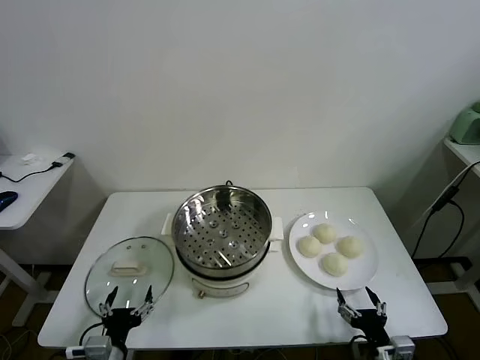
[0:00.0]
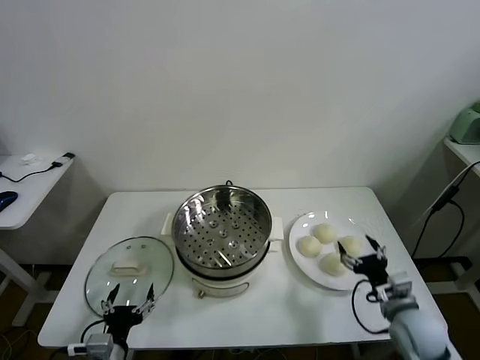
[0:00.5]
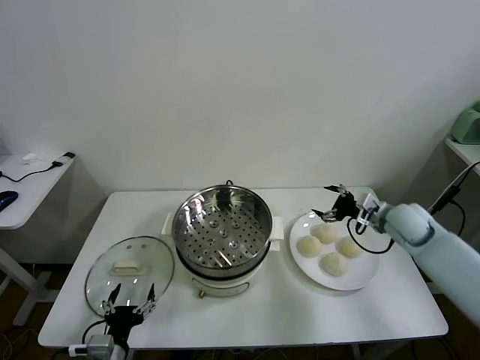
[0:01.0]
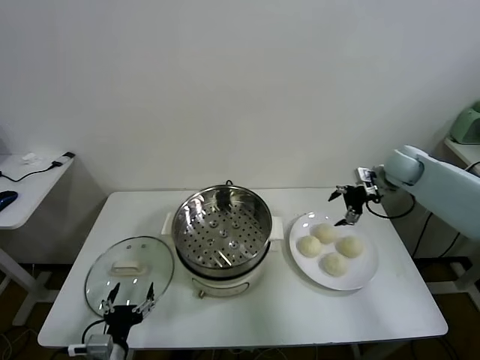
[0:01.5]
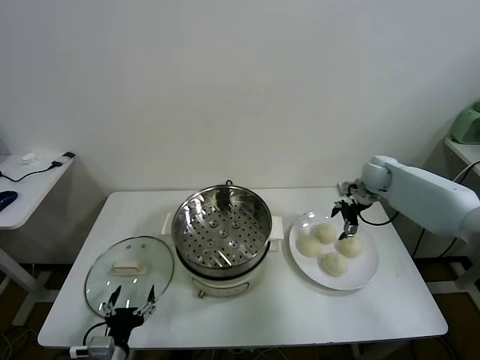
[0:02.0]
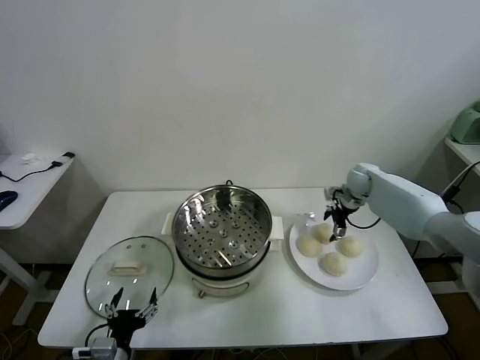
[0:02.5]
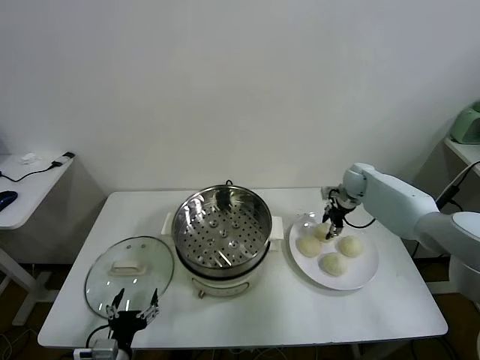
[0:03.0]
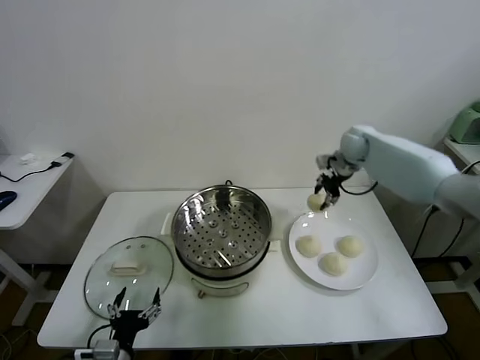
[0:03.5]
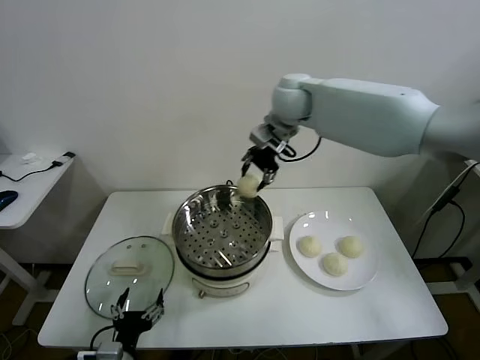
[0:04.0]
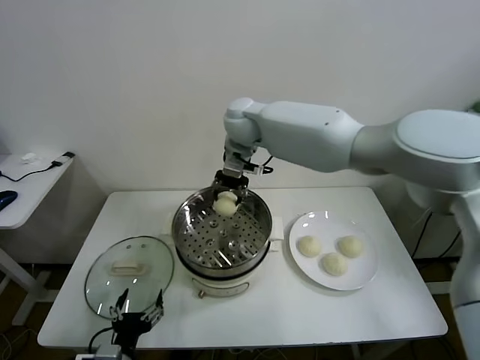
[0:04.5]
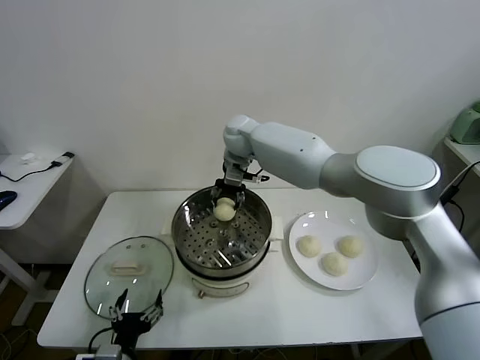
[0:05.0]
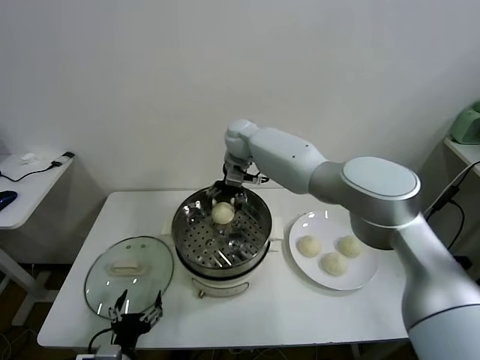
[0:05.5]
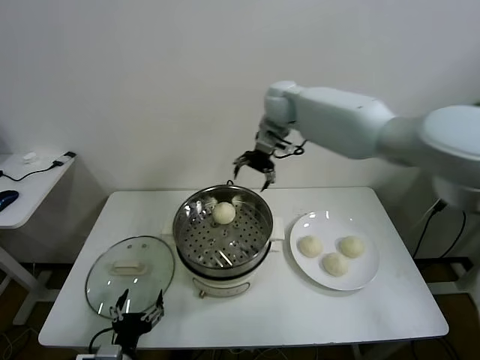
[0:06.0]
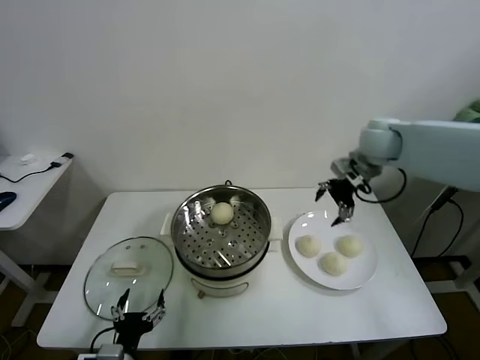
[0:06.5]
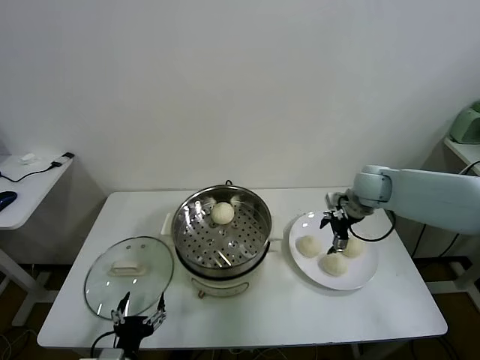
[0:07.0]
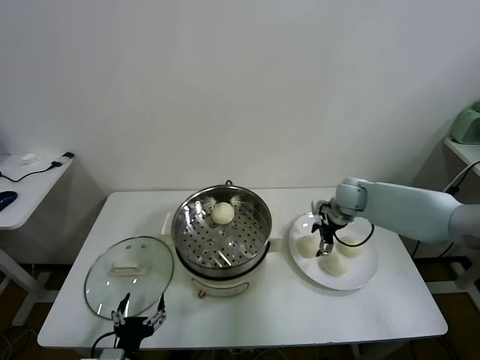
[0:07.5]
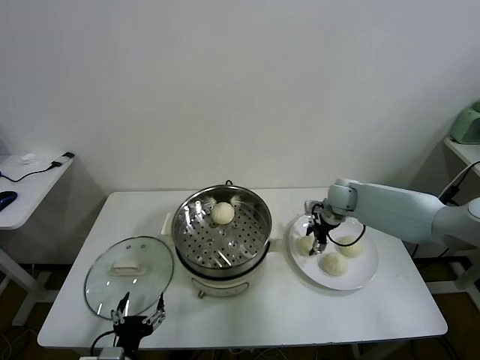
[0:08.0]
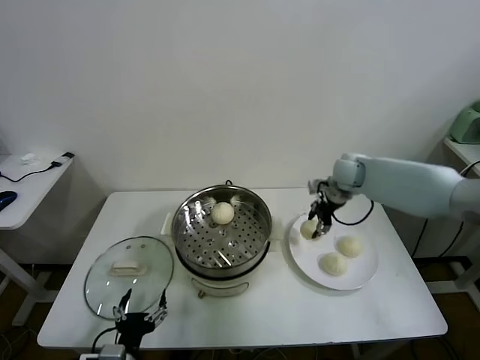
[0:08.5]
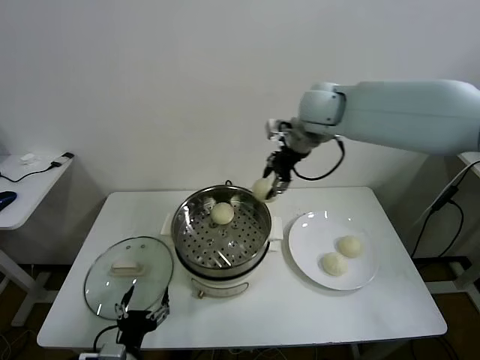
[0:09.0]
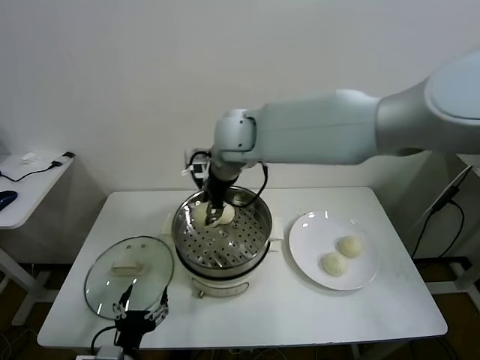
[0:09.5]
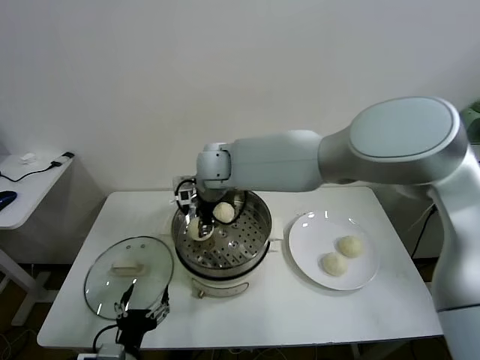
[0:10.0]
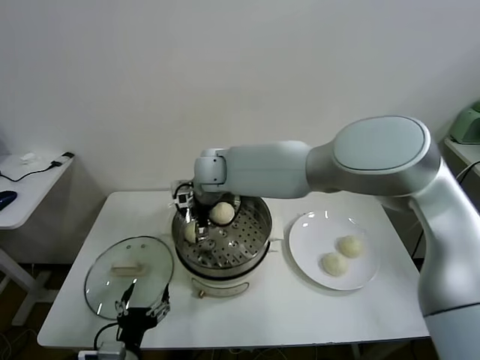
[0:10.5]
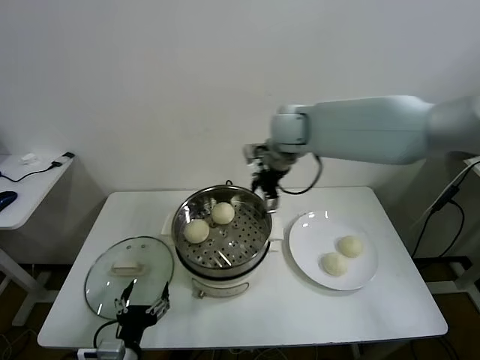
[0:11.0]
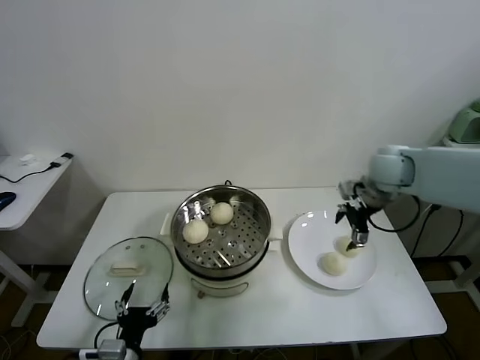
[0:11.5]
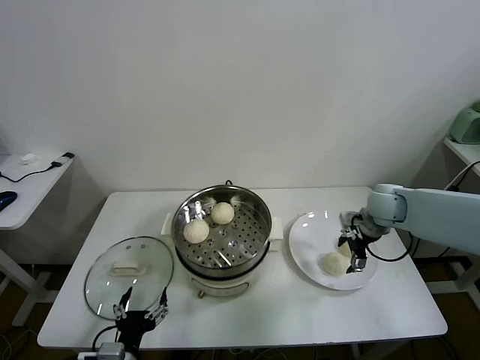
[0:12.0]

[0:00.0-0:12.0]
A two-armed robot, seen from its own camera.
Task of the whole recording: take steamed baozi put them in steamer.
Step, 0:00.0 to 0:03.0: Grasp the baozi in the plate with right gripper.
Step, 0:03.5 to 0:05.5: Place the baozi on the steamer with right gripper.
Step, 0:06.0 to 0:08.0: Grasp the baozi in the plate with right gripper.
Step, 0:08.5 to 0:10.0: Place the baozi on the steamer with right gripper.
0:02.0 to 0:04.0: The right gripper is displaced to the left and upward by approximately 35 cm, and closes up.
0:04.0 to 0:06.0: The right gripper heads to the right and forward, covering roughly 10 cm, and opens.
0:06.0 to 0:08.0: The right gripper goes approximately 30 cm downward and to the right, and closes its fingers.
0:08.0 to 0:10.0: The right gripper goes approximately 35 cm to the left and upward.
0:10.0 to 0:12.0: The right gripper moves to the right, roughly 40 cm, and opens.

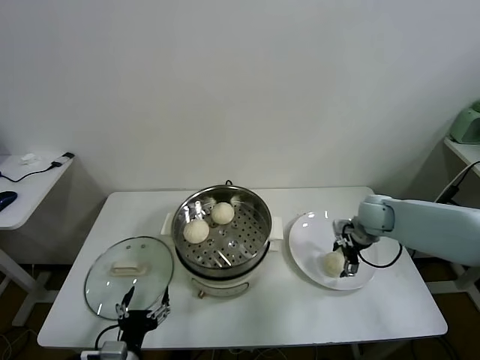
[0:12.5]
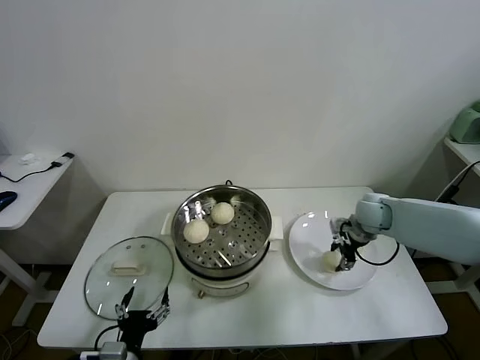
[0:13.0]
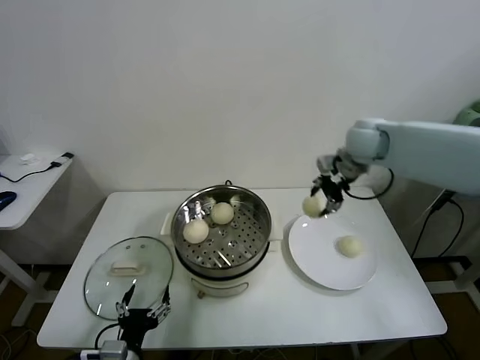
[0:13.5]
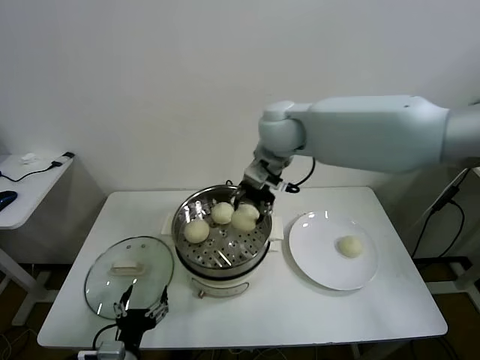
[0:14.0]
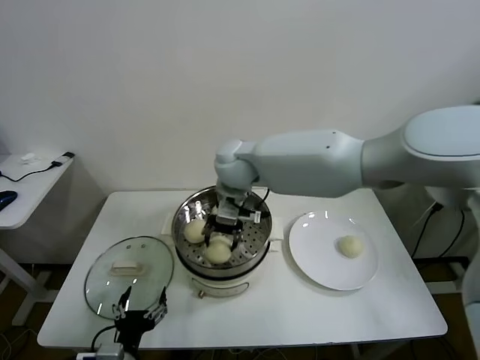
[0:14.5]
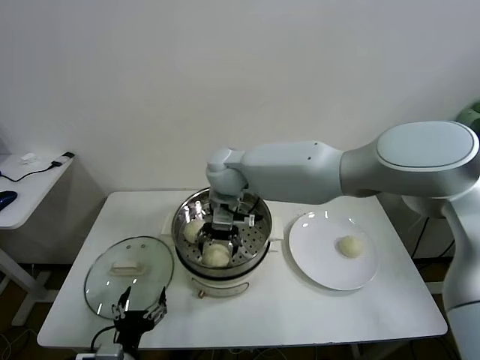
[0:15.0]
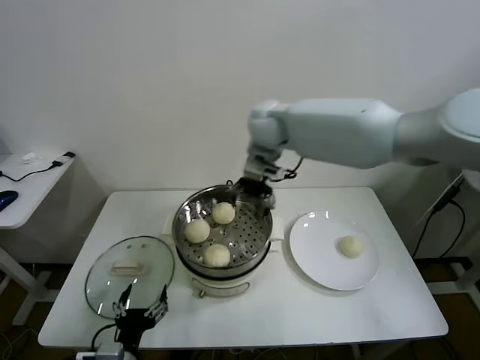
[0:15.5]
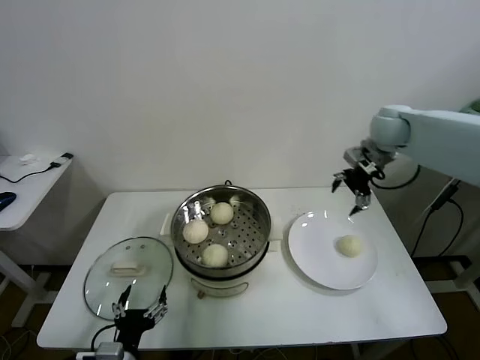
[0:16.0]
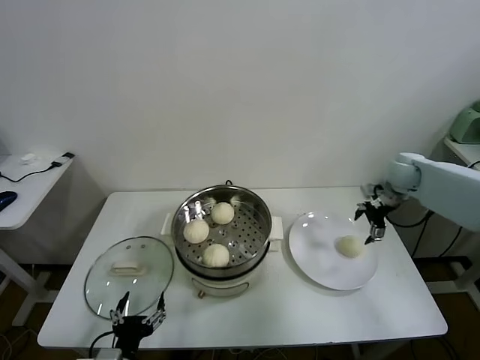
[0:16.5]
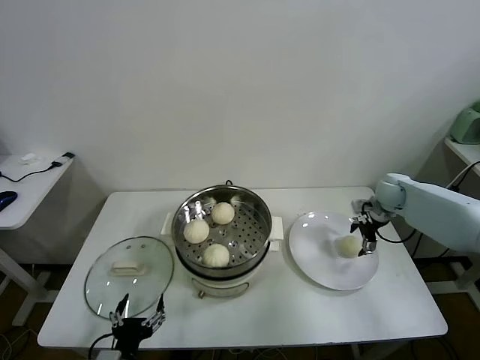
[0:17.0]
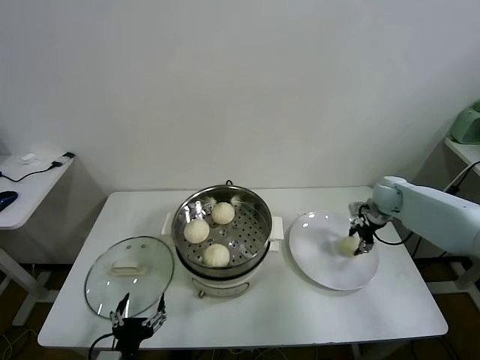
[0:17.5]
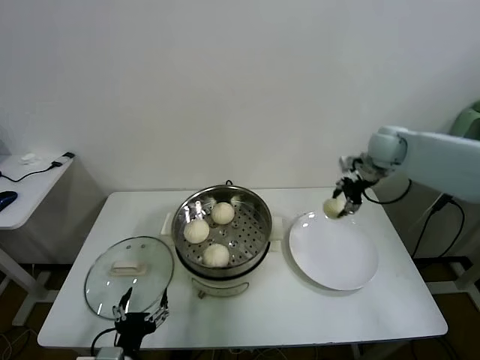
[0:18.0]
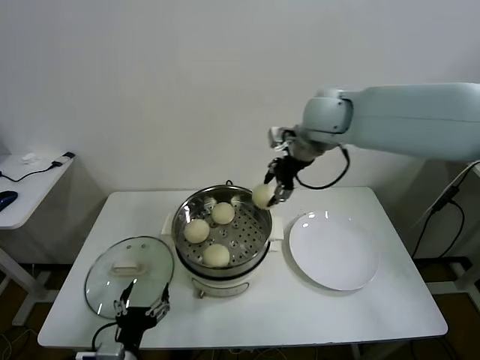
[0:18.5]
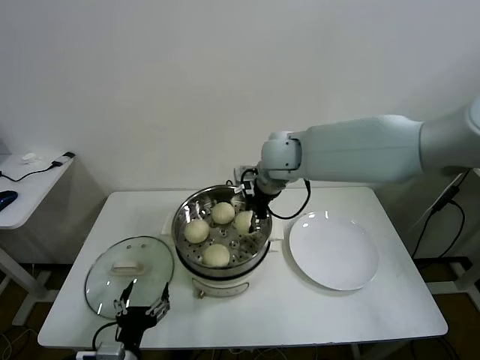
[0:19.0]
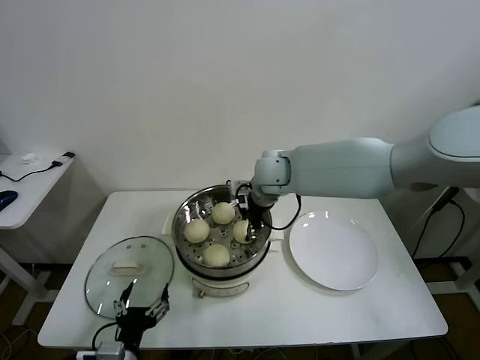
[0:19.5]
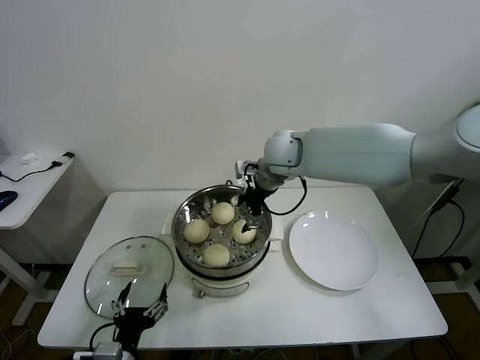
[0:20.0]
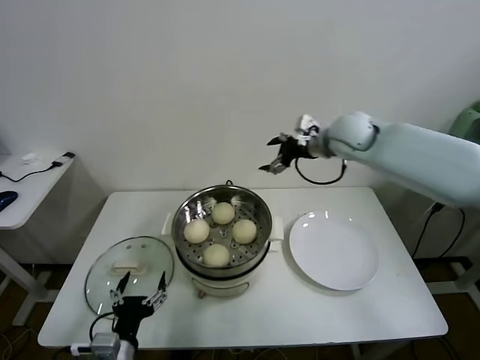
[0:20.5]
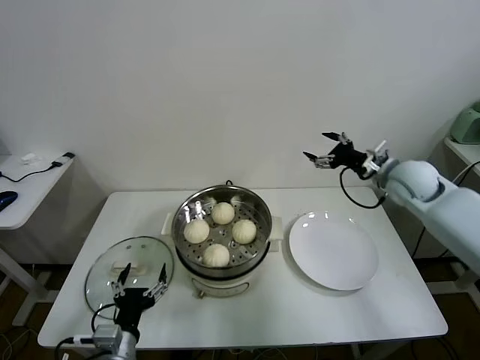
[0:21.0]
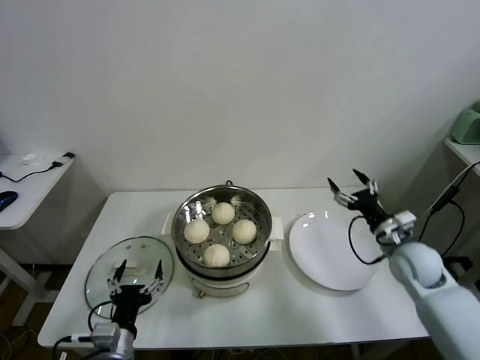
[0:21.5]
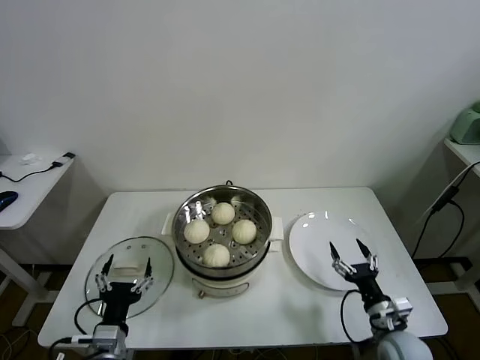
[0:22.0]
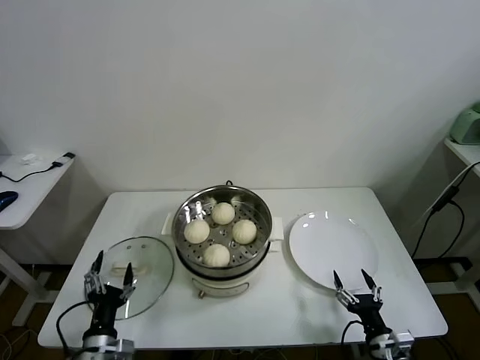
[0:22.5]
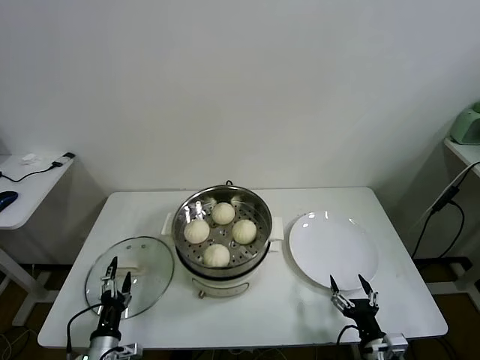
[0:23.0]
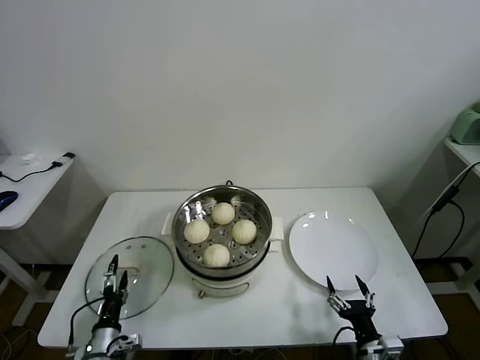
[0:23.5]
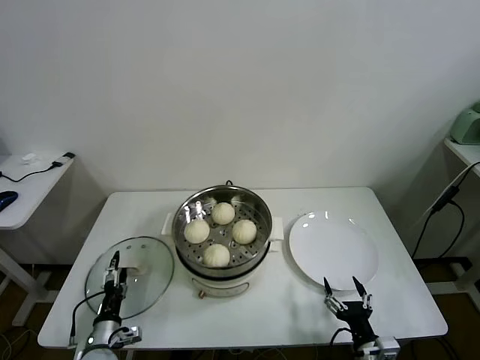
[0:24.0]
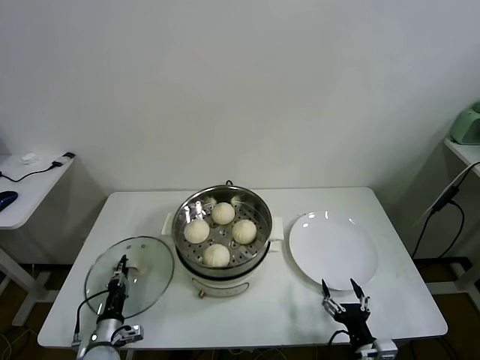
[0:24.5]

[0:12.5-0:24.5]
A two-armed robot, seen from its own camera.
Task of the whole recording: take steamed baozi put them in steamer.
Step, 0:13.0 to 0:15.0: Place the baozi on the steamer with right gripper.
Step, 0:15.5 to 0:17.0: Grasp the baozi in the plate with right gripper.
Step, 0:18.0 to 0:19.5: Place the baozi on the steamer with right gripper.
0:12.5 to 0:14.5: The right gripper travels to the left and upward by roughly 40 cm, and closes its fingers.
0:14.5 to 0:16.5: The right gripper goes about 40 cm to the right, and opens up.
0:16.5 to 0:18.5: The right gripper heads to the left and upward, covering approximately 30 cm, and closes.
0:18.5 to 0:20.5: The right gripper goes some 10 cm to the right and downward, and opens.
0:20.5 to 0:22.5: The right gripper moves backward and downward, approximately 50 cm. The left gripper shifts approximately 5 cm downward.
0:22.5 to 0:24.5: The left gripper moves downward, forward and to the left, some 15 cm, and closes.

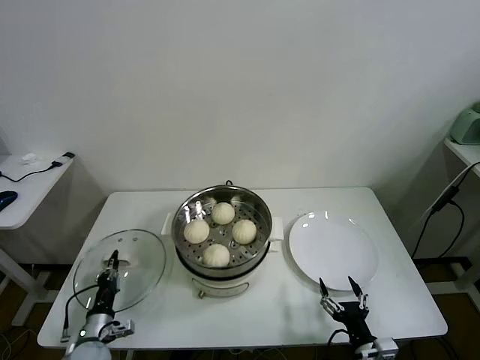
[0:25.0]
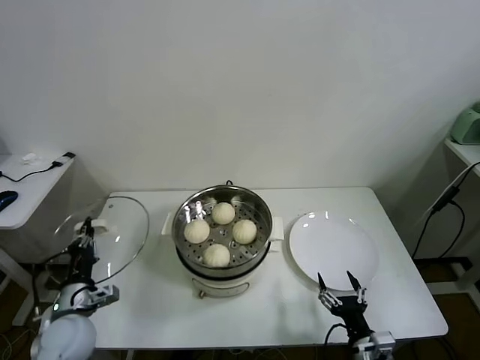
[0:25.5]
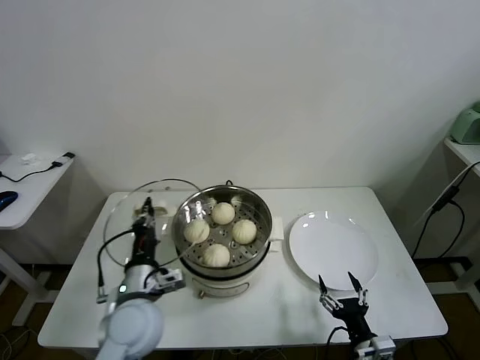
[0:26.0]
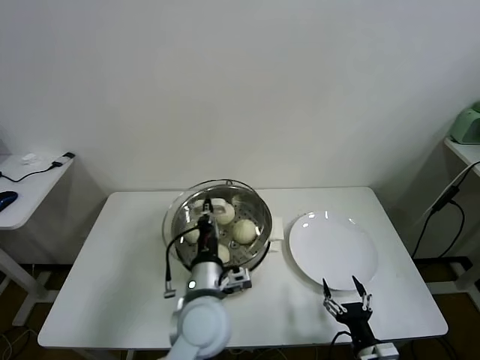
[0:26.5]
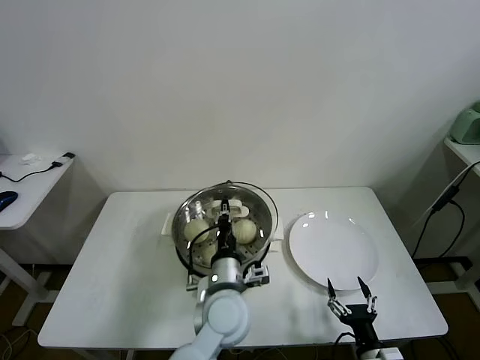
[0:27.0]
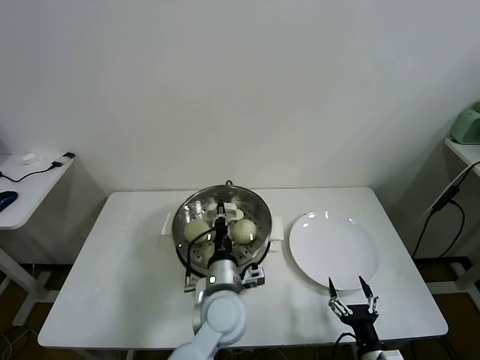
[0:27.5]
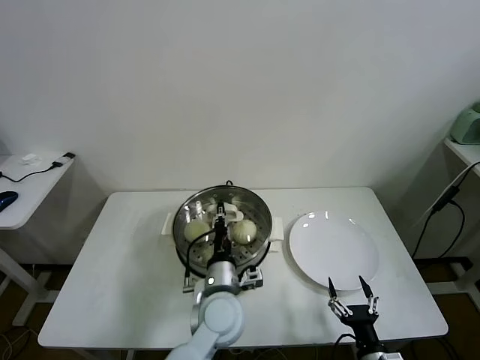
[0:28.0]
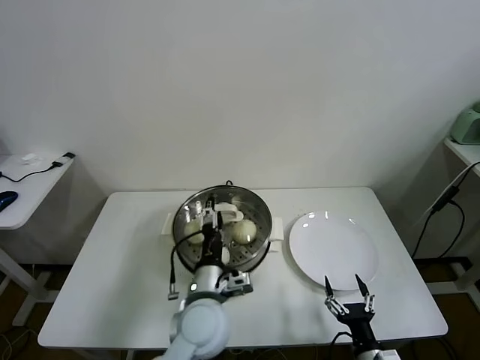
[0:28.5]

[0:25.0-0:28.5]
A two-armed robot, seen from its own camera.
Task of the whole recording: take steamed baozi put them in steamer.
Step, 0:25.0 to 0:28.0: Place the pot lid on the steamer with left gripper.
0:25.0 to 0:27.0: The left gripper is displaced to the right and upward by roughly 40 cm.
0:27.0 to 0:28.5: The left gripper opens up.
